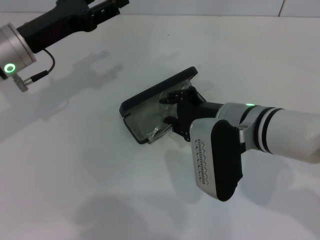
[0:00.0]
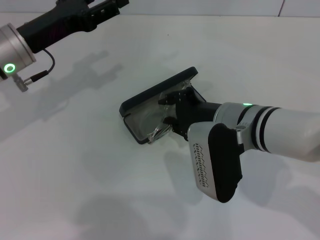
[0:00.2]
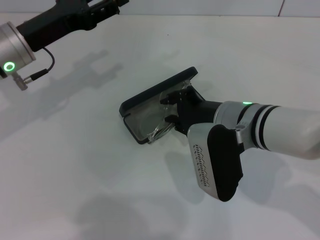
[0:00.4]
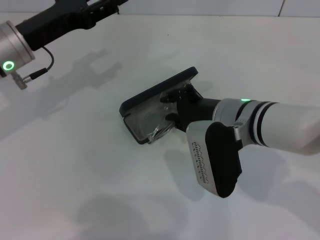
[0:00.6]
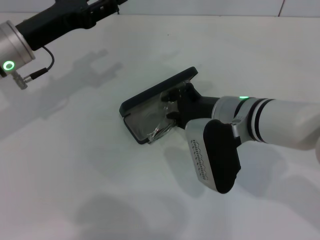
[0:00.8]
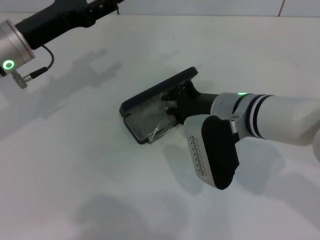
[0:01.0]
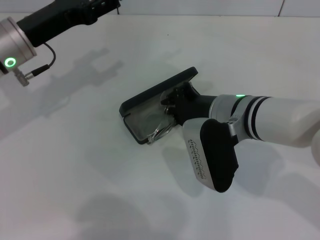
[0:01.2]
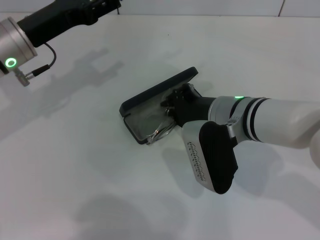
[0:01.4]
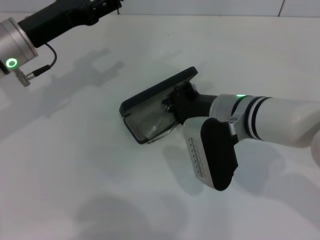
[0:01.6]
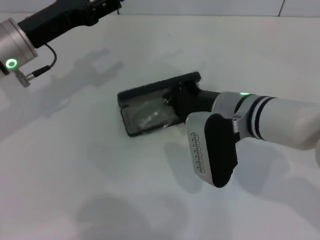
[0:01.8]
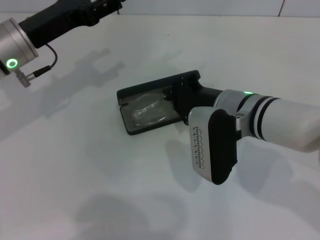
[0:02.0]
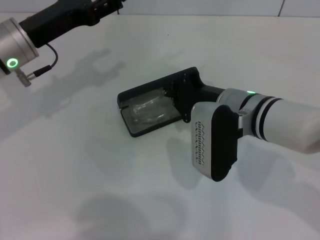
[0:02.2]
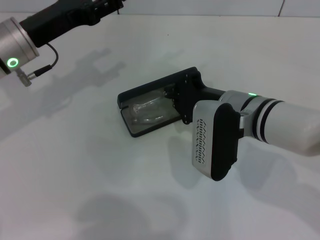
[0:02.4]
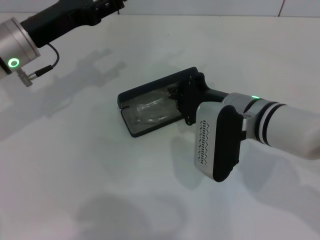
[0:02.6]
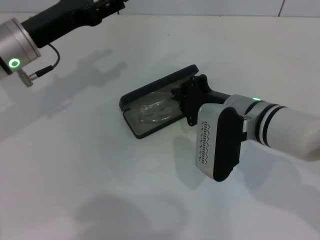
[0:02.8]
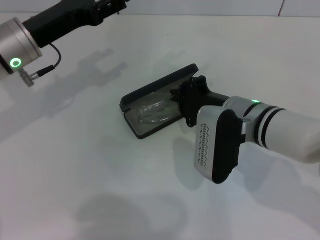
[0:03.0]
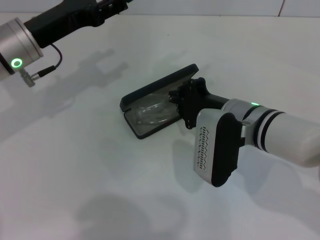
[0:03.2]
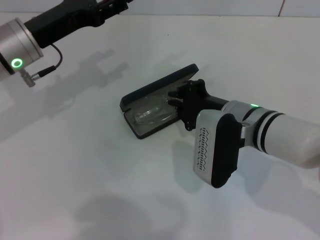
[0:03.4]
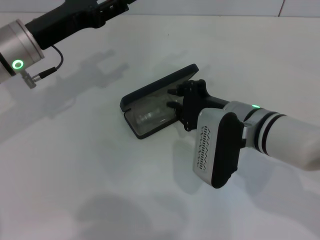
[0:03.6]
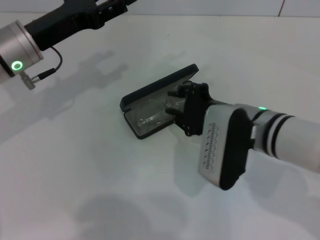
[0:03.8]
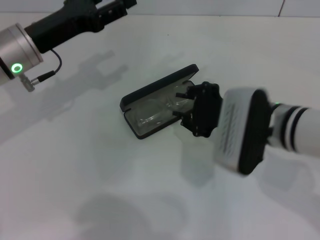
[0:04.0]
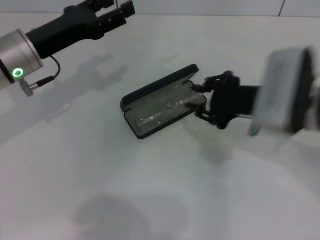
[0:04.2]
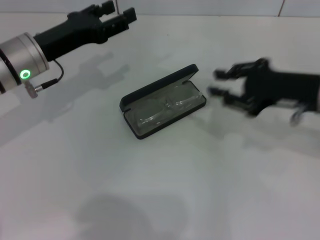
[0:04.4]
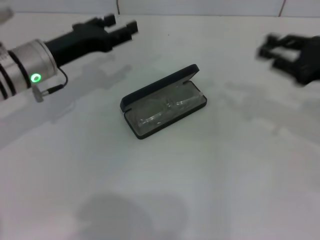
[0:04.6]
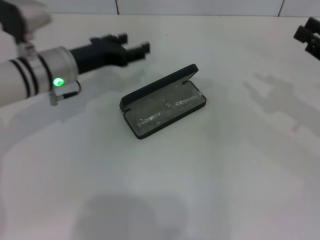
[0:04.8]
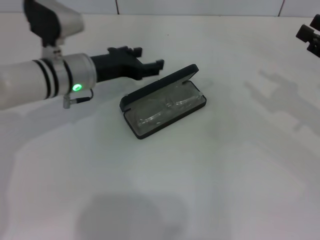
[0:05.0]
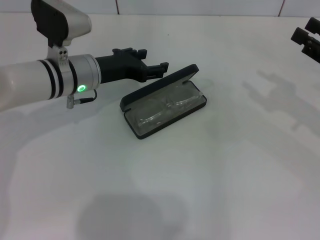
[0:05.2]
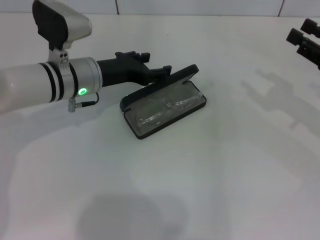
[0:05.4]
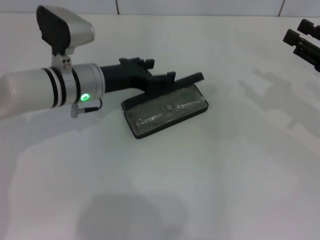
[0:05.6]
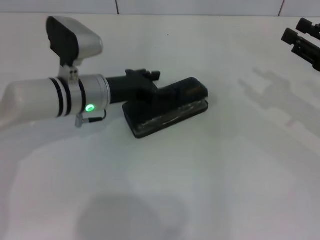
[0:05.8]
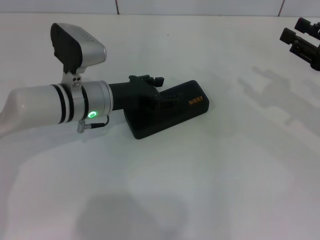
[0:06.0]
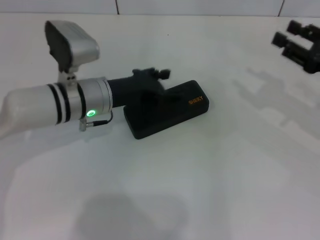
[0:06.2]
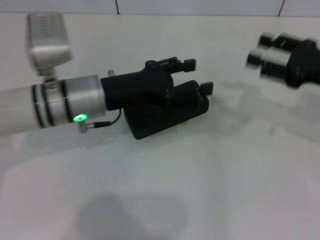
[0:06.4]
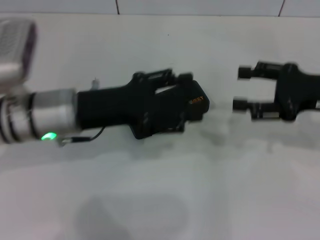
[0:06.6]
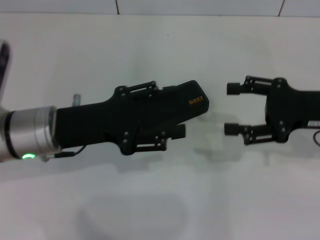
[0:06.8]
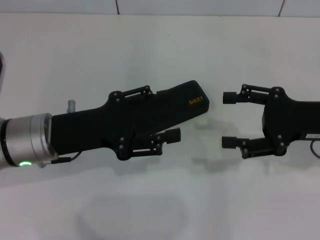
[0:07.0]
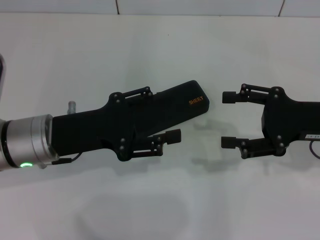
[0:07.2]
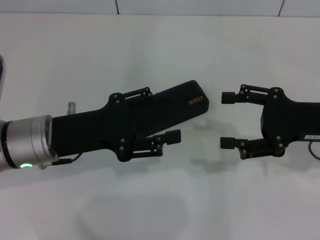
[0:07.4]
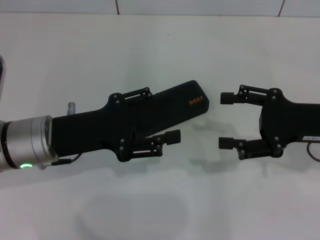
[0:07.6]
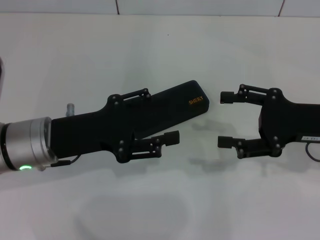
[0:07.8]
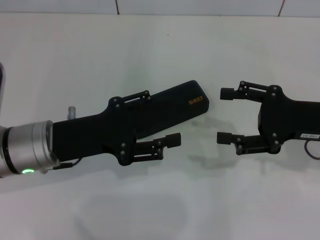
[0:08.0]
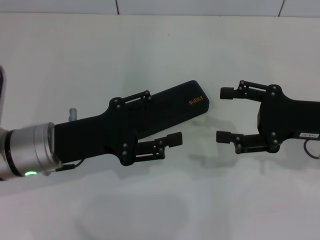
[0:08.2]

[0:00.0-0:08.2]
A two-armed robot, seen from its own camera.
Step, 0.0 to 3.6 s: Put the glasses into the case with your right hand.
Step, 3.8 to 5.8 s: Close the glasses case with your left hand.
0.0 to 3.2 s: The grippers make only small movements.
3.2 to 5.0 s: The right gripper goes approximately 20 cm to the right, and opens its fingers; the left gripper goes approximately 10 cm downward and to the right.
5.0 to 6.6 s: The right gripper moves to the left, some 5 cm, while the left gripper goes some 10 cm backward.
6.6 to 8.2 s: The left gripper shifts by some 5 cm.

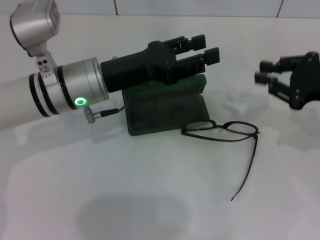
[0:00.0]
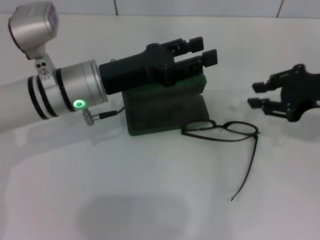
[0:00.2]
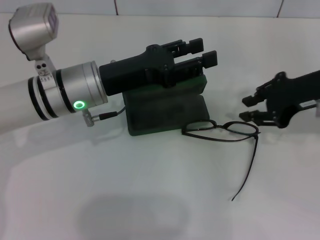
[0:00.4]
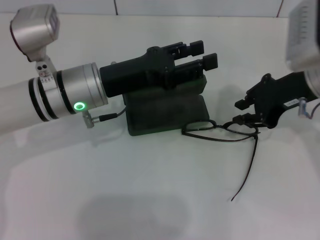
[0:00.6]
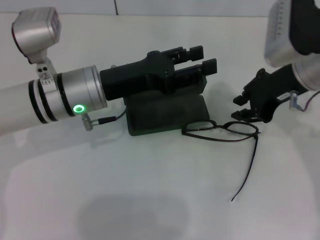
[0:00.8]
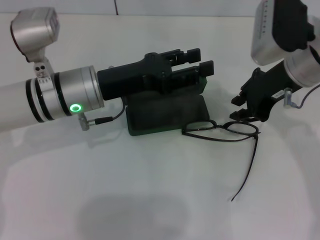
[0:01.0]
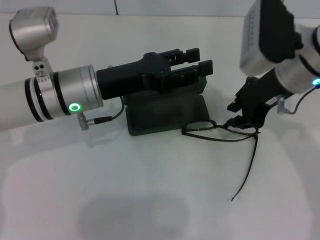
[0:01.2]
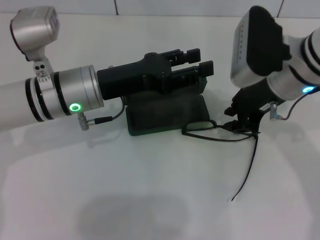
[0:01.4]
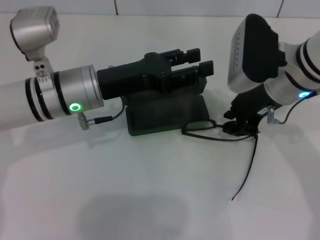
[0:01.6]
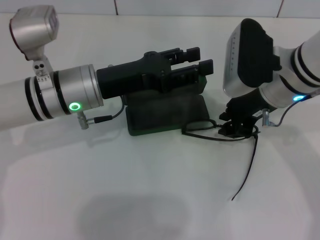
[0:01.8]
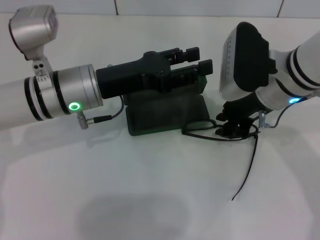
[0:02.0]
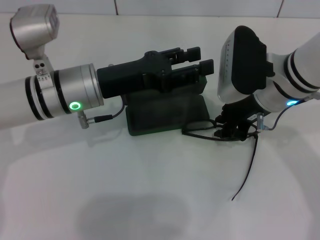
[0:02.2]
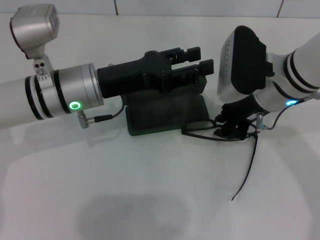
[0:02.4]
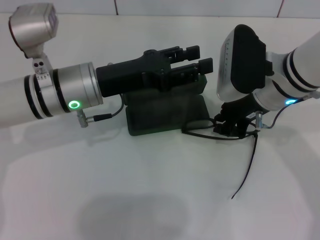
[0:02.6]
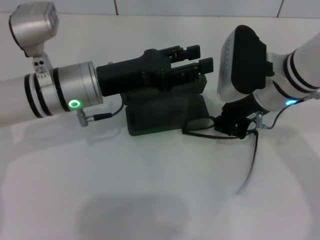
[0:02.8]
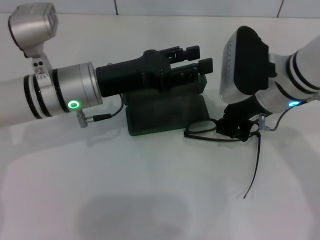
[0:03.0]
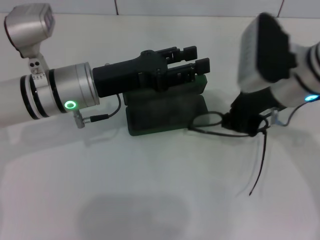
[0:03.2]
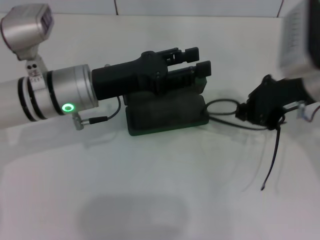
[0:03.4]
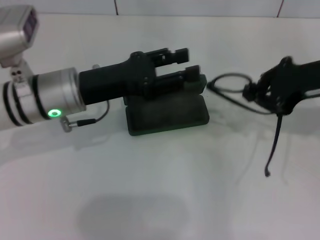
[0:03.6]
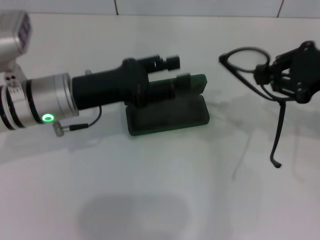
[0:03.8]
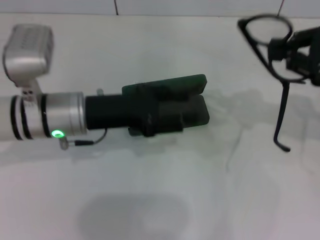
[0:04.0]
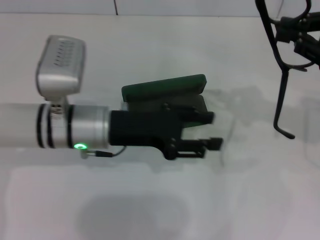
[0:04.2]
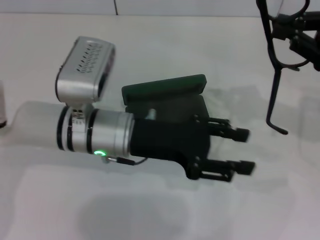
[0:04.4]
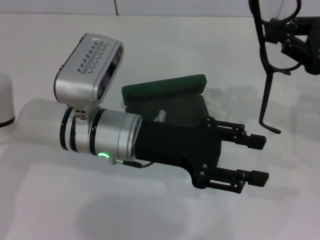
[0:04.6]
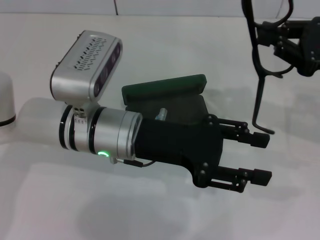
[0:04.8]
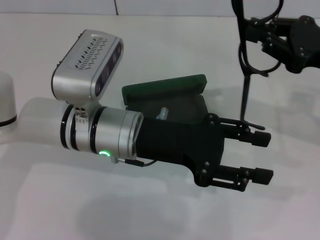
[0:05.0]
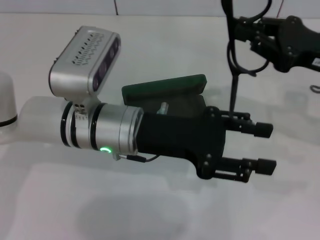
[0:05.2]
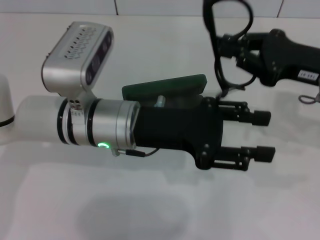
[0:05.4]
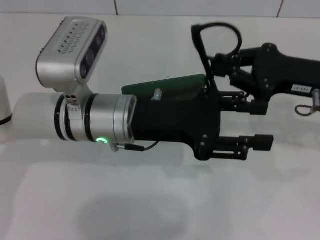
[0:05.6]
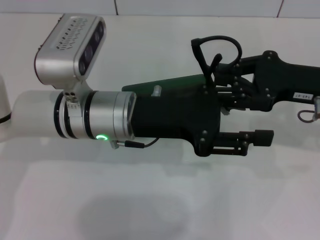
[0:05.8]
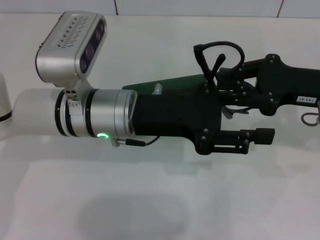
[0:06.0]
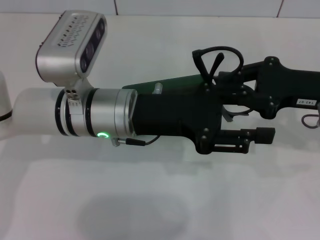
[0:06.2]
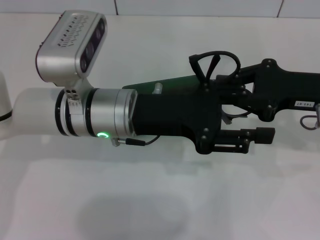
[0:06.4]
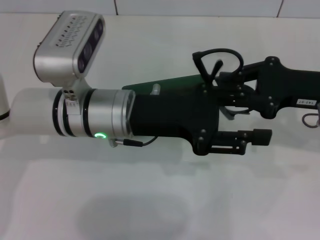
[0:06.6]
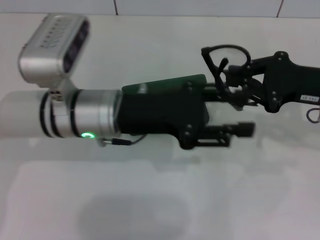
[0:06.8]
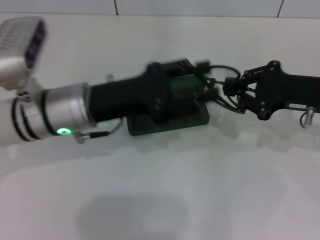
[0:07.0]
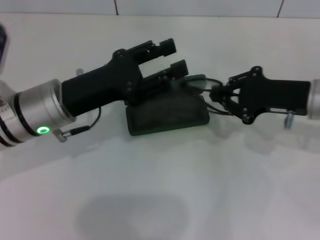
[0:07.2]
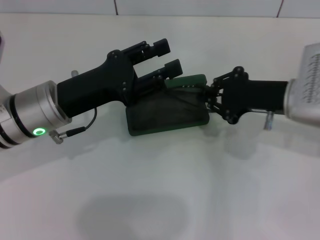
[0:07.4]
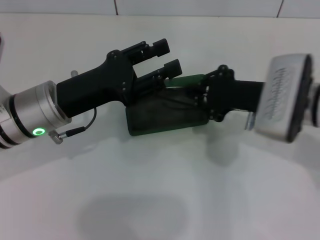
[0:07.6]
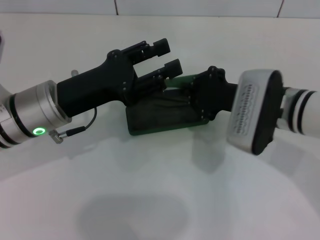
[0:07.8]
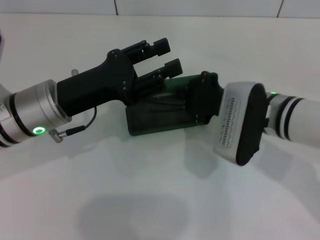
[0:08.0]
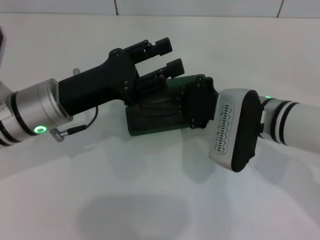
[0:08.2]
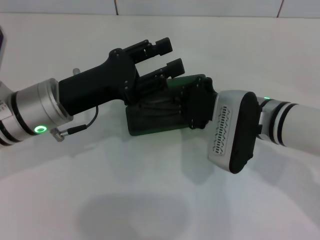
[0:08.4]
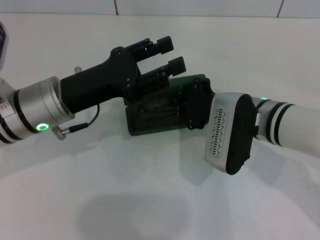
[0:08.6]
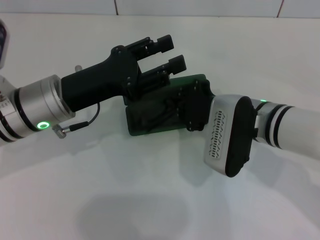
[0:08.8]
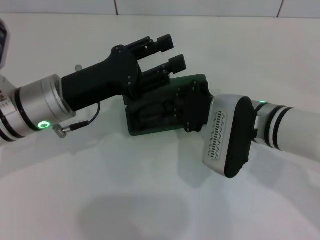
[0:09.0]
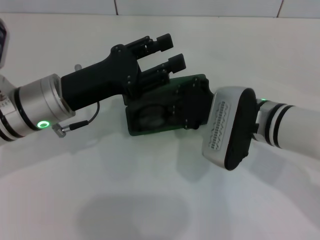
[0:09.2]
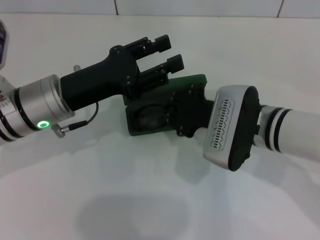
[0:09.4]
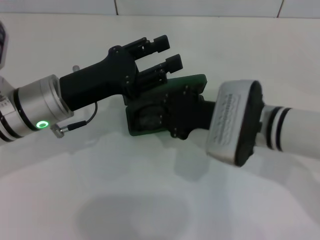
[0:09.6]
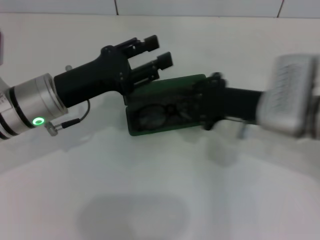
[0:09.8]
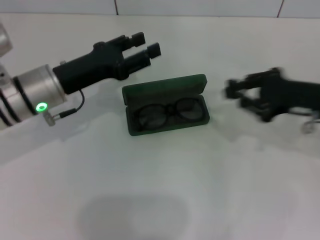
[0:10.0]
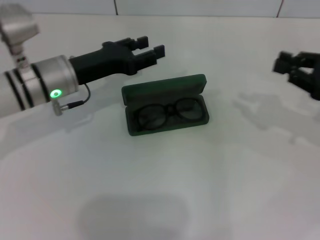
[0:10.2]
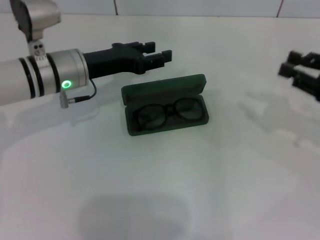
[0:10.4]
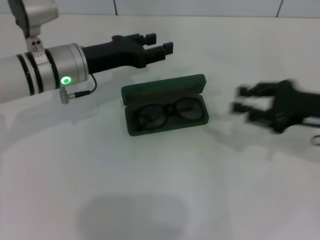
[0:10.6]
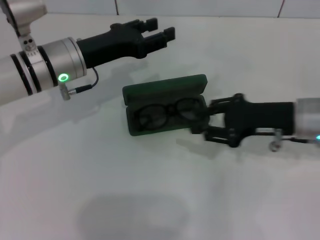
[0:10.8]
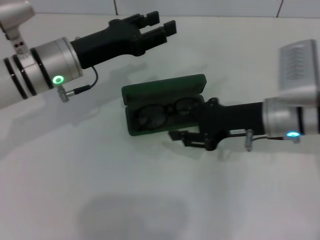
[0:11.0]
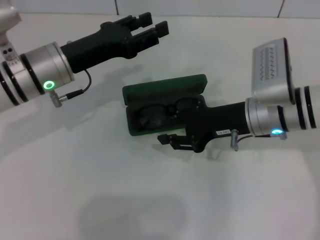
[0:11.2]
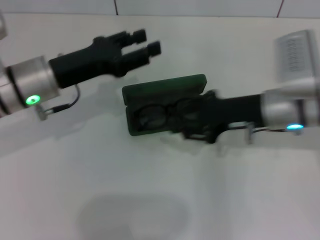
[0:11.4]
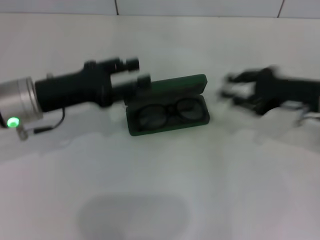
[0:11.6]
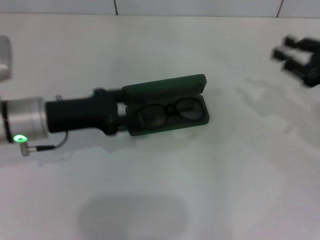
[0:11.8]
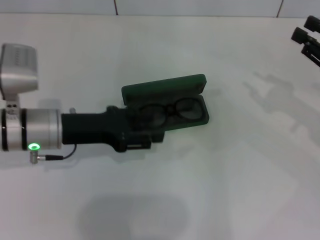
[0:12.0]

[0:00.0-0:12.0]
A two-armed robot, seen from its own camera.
Step, 0.0 to 2.4 s: Grab the eyeglass frame with your right hand.
Step, 2.8 to 6.4 s: Fold the frame with your left hand.
Step, 6.6 to 9.4 s: Put the glasses into the case with your right hand.
0.0 to 1.6 s: The right gripper goes about 15 cm to the left.
1.6 to 3.0 s: The grippers stay close to where they were, moving slightly.
3.0 to 4.4 s: The left gripper changes place by approximately 5 cm, while the right gripper shifts roughly 15 cm to the right.
4.4 to 6.0 s: The right gripper shifts about 5 cm to the left.
6.0 to 7.6 s: The two grippers go about 10 cm to the left.
7.6 to 9.0 s: The right gripper goes about 5 cm to the left.
9.0 to 10.4 s: The left gripper moves forward, some 5 cm; the right gripper is displaced to the right by some 20 cm.
10.4 to 12.0 s: The left gripper moves backward, approximately 5 cm. Meanwhile the right gripper travels to the left and back again, about 20 cm each way.

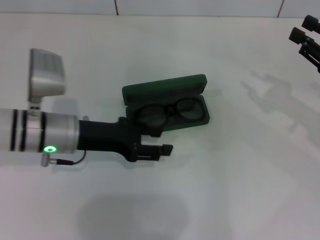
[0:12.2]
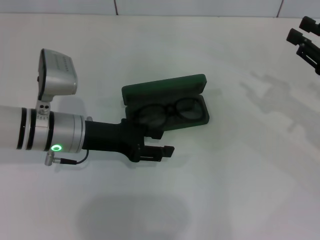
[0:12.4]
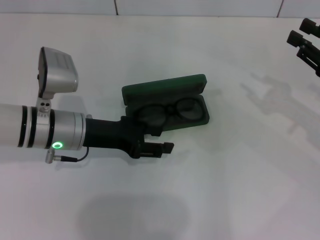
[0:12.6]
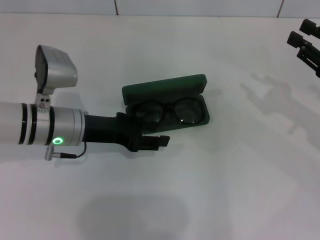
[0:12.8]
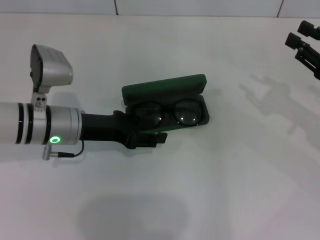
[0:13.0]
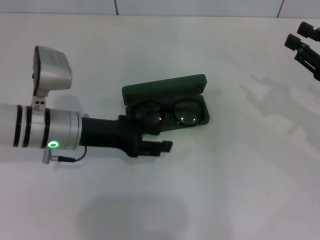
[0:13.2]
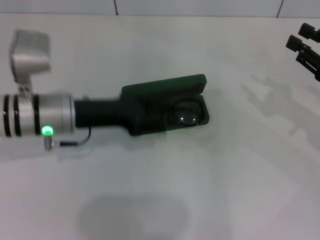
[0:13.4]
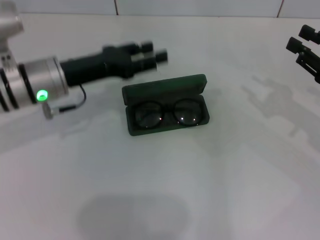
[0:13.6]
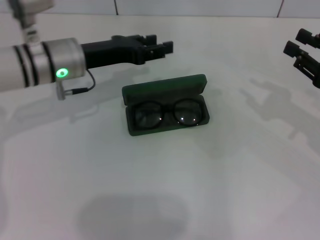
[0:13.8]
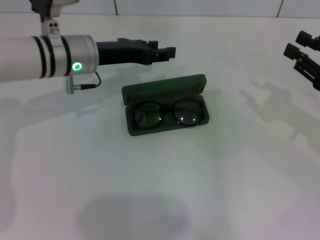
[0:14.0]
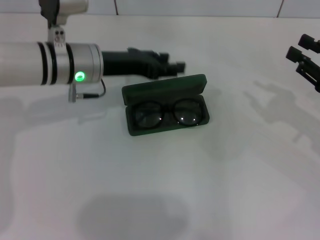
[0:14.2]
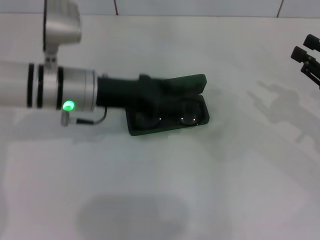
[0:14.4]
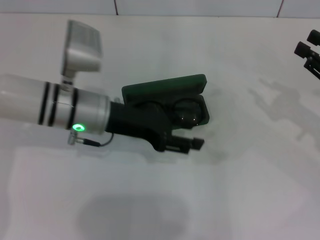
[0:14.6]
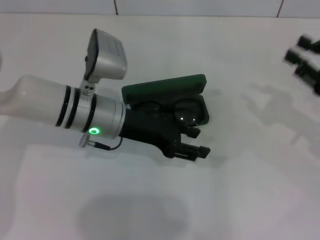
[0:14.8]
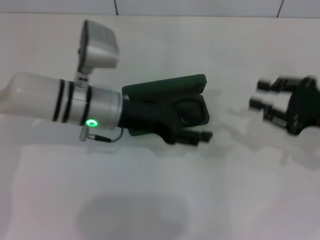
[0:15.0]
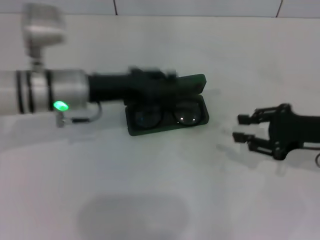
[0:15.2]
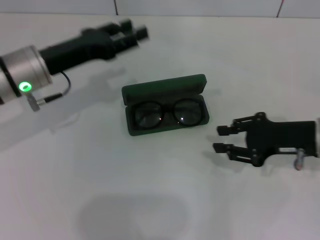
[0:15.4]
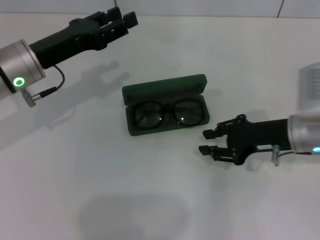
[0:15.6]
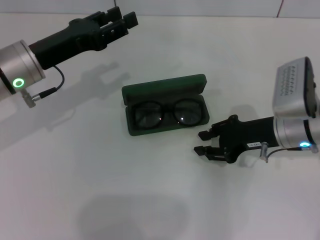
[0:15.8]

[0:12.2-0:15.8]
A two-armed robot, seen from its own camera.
12.2 to 14.0 s: The left gripper travels forward by about 10 cm.
14.0 to 15.8 s: The left gripper is displaced to the left and backward by roughly 10 cm. The right gripper heads to the left, covering about 10 cm.
